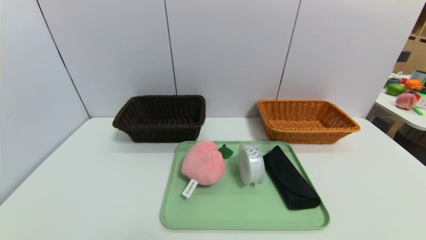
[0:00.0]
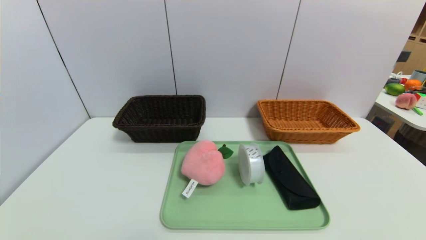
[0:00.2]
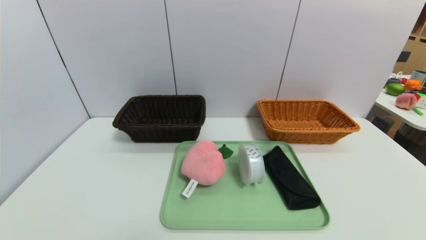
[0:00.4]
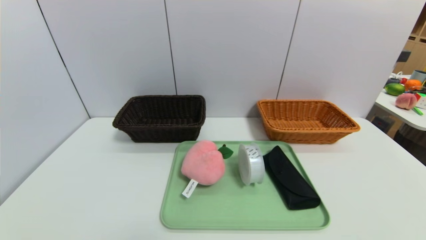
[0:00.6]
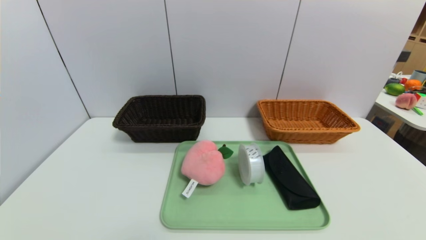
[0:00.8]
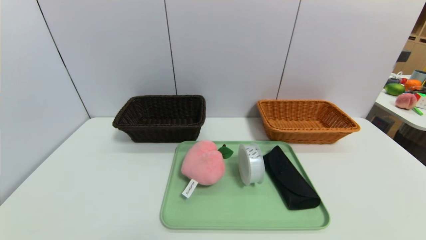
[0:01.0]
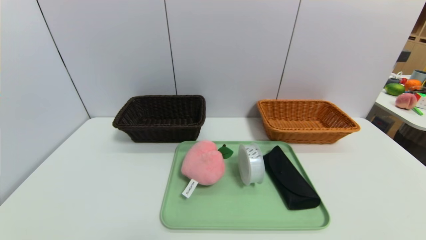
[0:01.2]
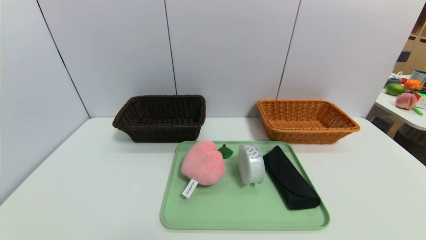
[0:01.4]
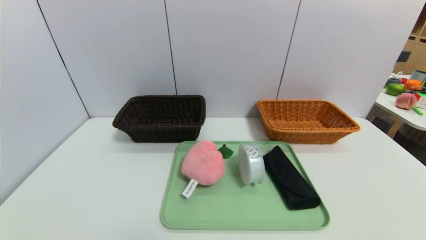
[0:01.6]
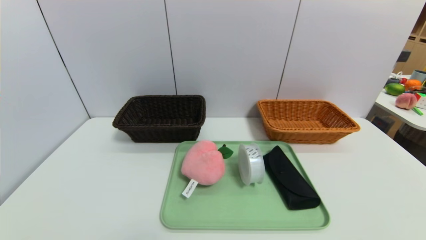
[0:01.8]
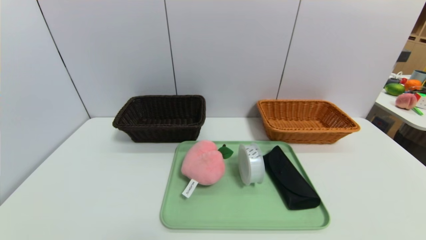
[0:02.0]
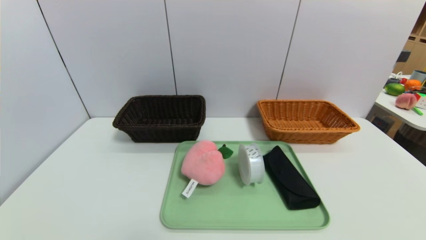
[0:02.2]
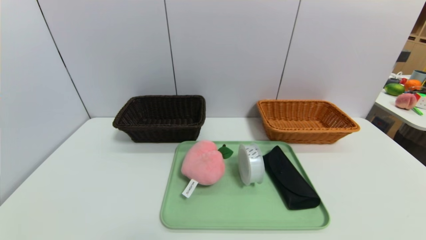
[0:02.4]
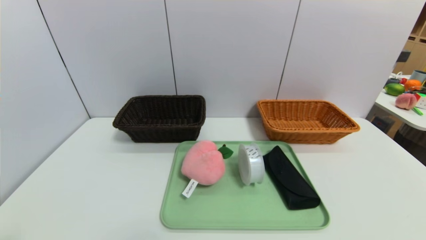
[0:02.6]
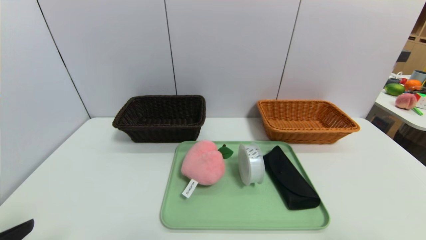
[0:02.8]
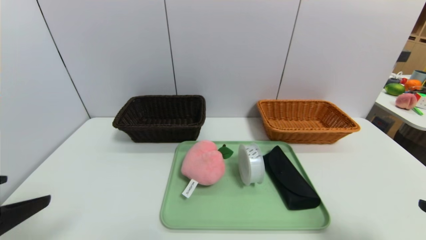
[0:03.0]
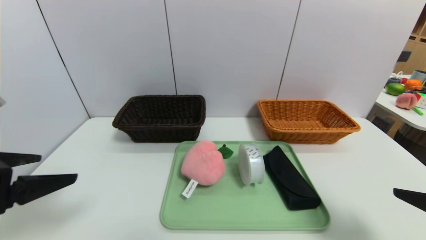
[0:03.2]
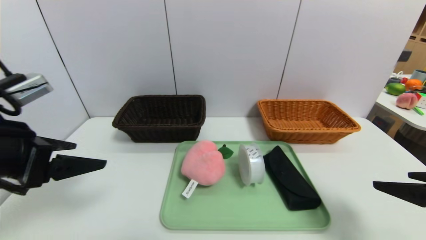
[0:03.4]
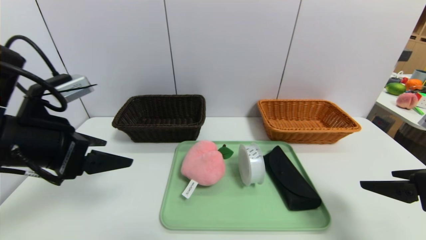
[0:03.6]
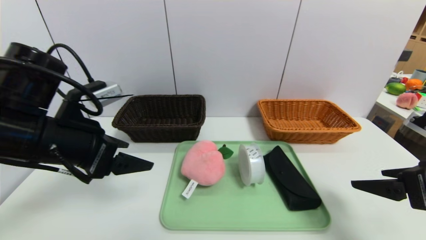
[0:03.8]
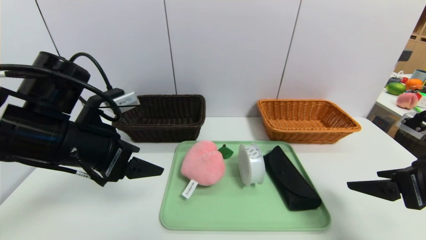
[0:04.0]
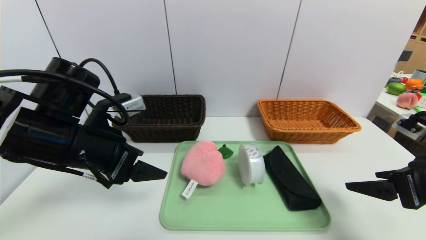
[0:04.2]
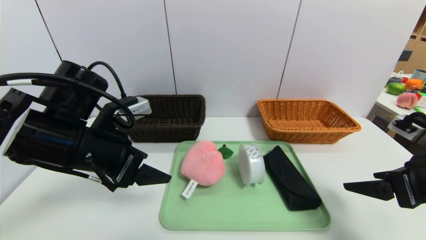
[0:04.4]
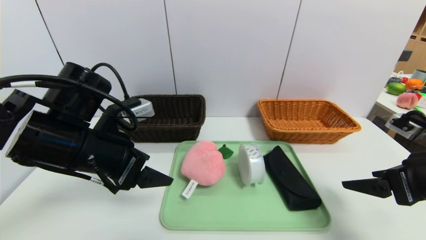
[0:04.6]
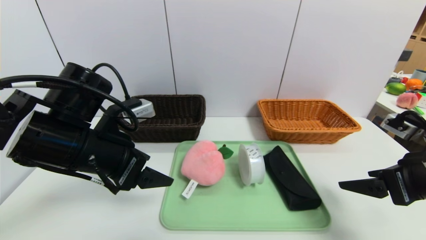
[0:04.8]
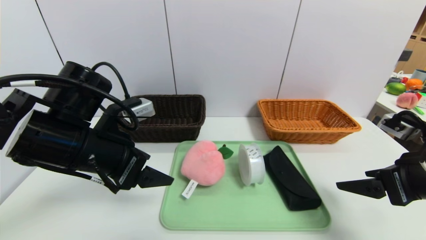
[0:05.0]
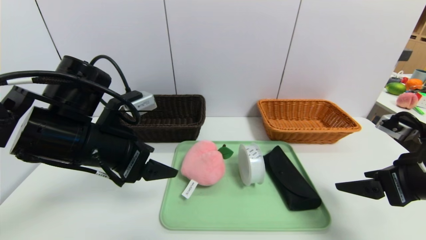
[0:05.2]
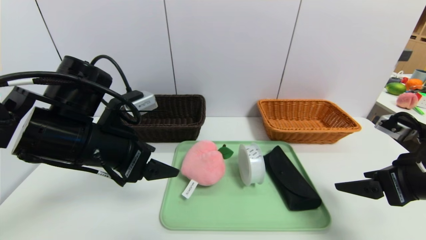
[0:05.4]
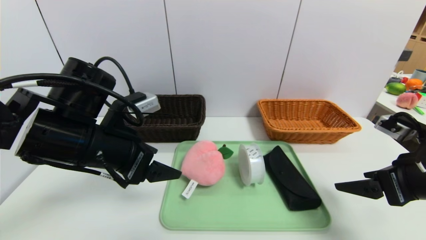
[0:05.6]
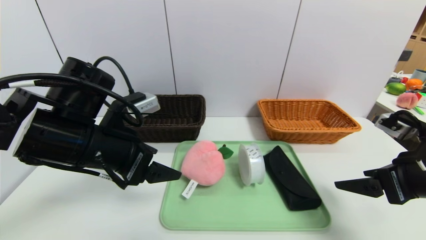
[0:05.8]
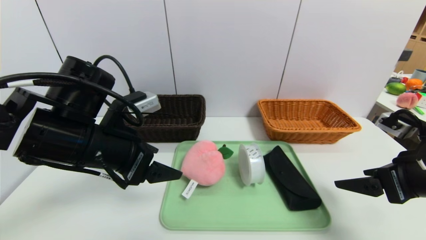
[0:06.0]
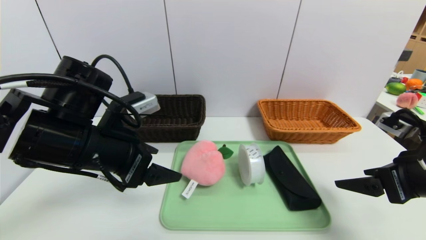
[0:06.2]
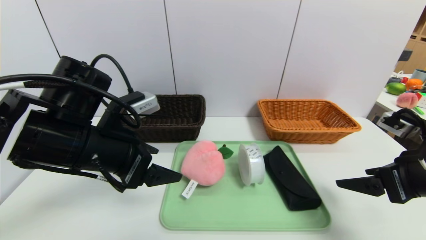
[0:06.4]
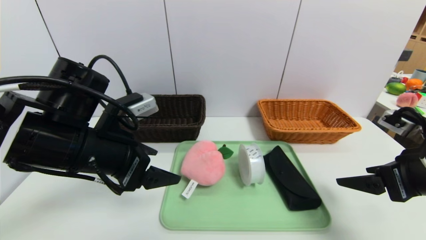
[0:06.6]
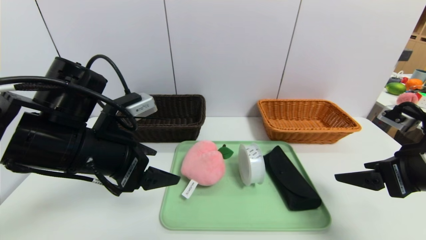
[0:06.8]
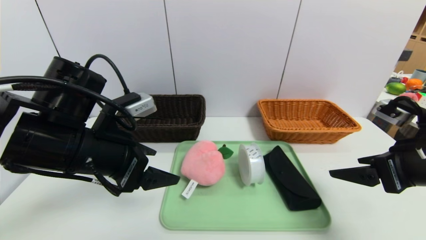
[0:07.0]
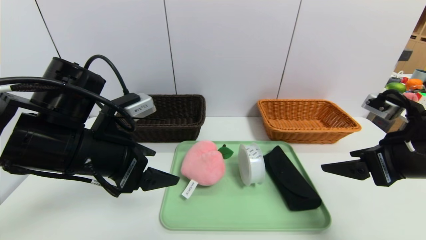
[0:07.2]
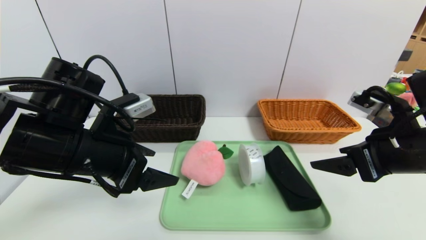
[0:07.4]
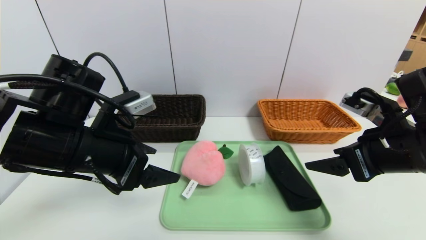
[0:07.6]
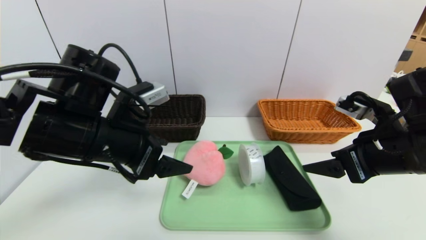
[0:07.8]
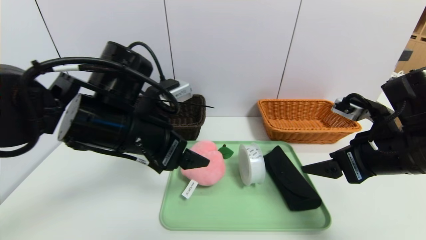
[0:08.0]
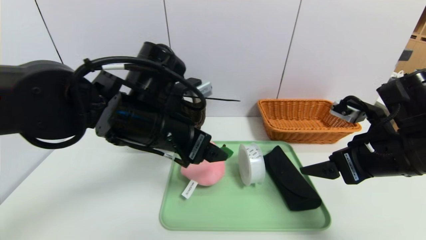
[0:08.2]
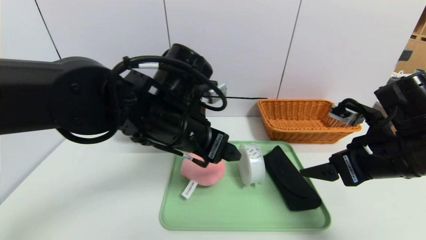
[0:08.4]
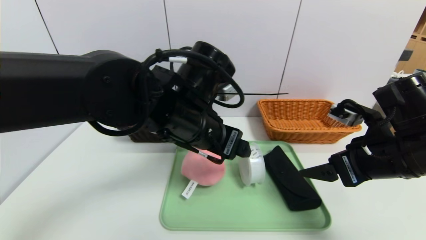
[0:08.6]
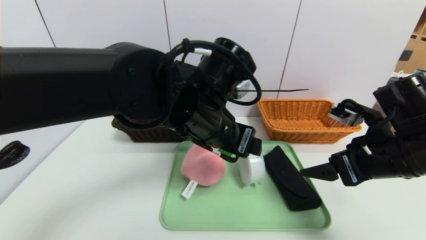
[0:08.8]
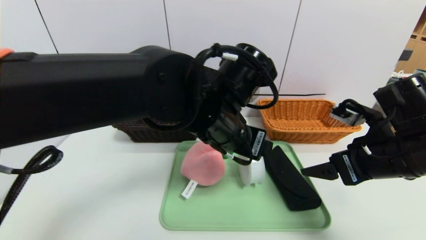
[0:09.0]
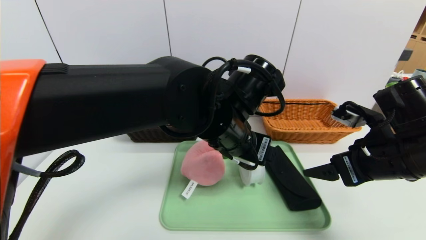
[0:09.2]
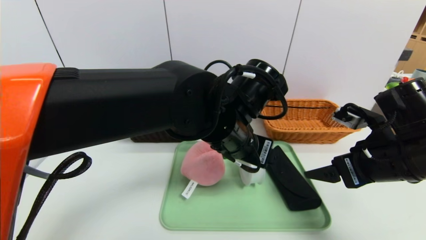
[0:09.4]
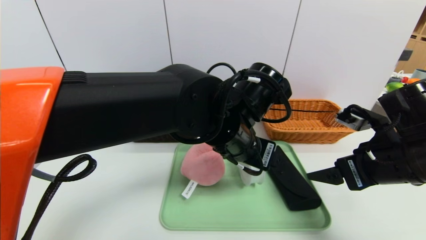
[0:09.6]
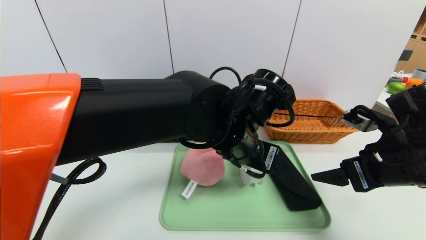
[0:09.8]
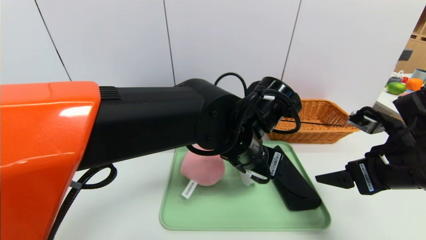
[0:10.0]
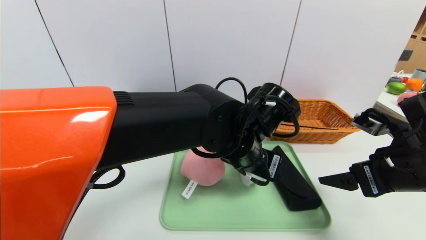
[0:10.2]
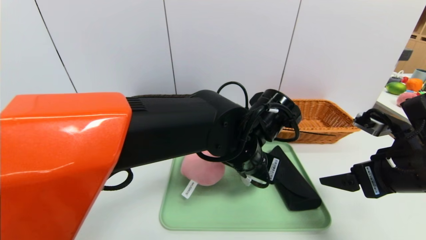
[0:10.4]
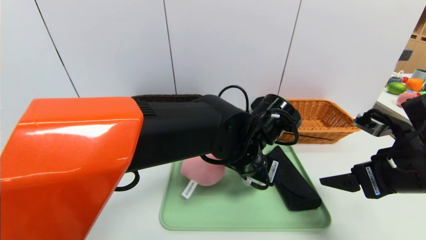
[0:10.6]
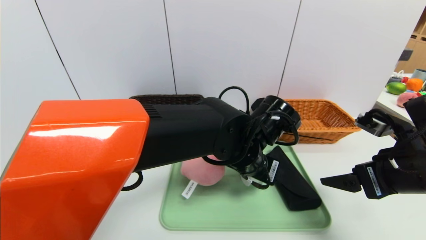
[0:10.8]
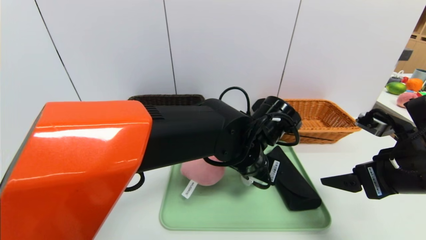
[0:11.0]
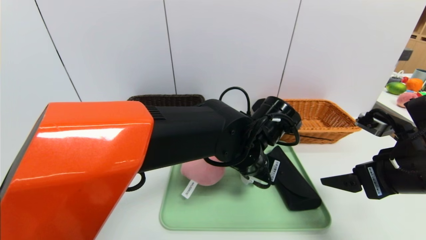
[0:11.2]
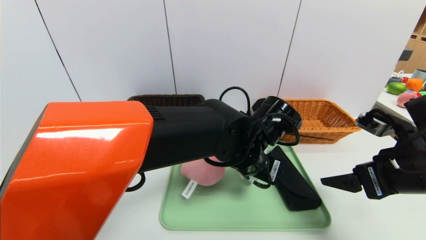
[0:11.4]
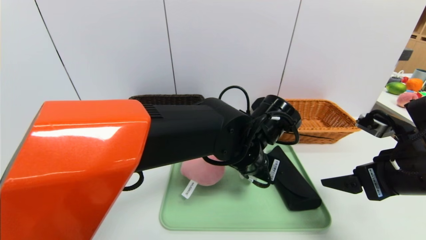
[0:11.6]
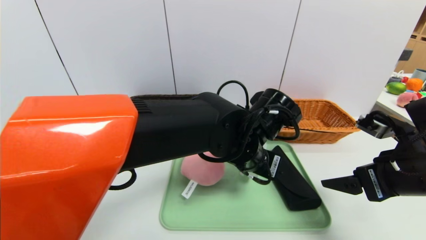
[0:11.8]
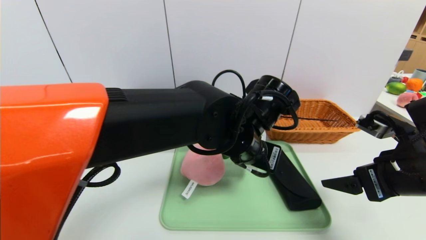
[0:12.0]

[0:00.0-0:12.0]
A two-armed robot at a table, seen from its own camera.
Task of the whole recording: place the food in the right basket with the right gripper, and place the non food items in the left basket with the left gripper.
0:00.0 to 0:01.6: Both grippers stay about where they are.
0:01.6 to 0:03.0: Both grippers move upward and forward, some 20 cm.
0:03.0 to 0:04.4: The right gripper heads forward, covering roughly 10 cm, while the left gripper travels forward and to the right by approximately 20 cm.
0:04.4 to 0:06.0: The grippers move only a little.
0:06.0 to 0:07.6: The right gripper ends up some 5 cm from where it was.
0:07.6 to 0:09.0: The left gripper shifts about 20 cm to the right.
0:09.0 to 0:10.4: The left gripper moves downward, roughly 5 cm.
0:10.4 to 0:12.0: The left gripper closes its fingers.

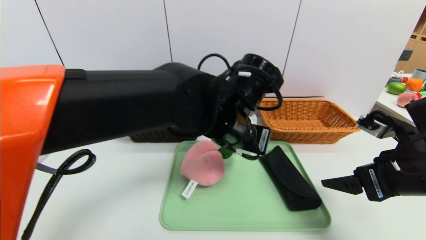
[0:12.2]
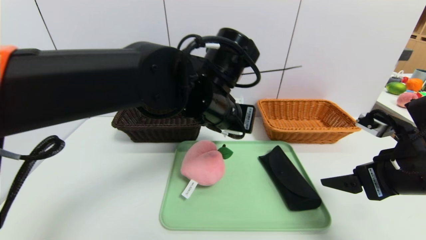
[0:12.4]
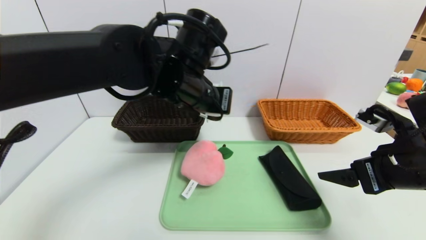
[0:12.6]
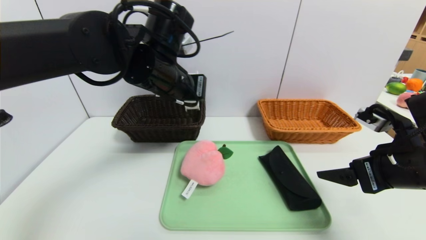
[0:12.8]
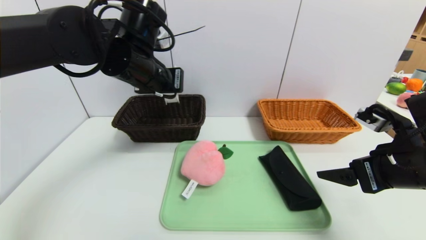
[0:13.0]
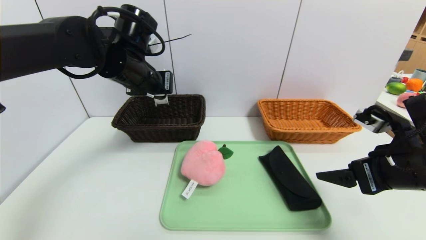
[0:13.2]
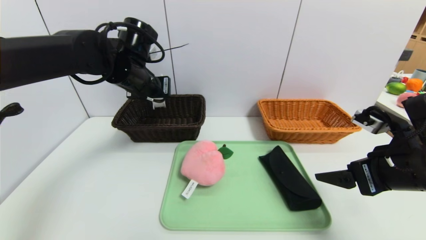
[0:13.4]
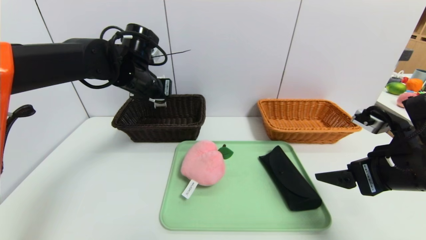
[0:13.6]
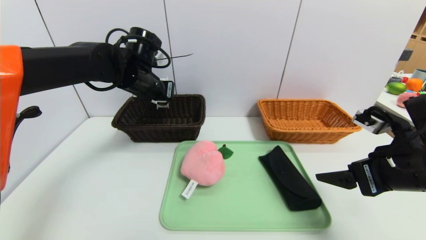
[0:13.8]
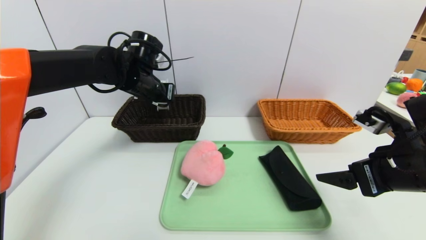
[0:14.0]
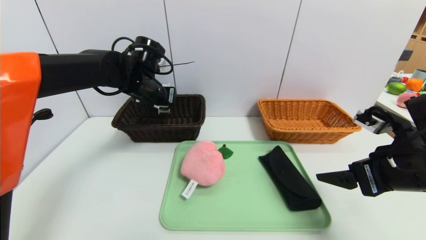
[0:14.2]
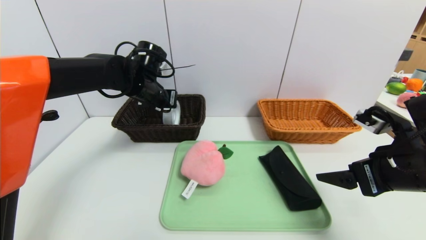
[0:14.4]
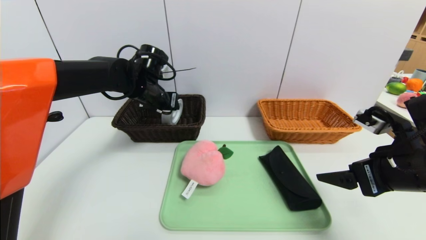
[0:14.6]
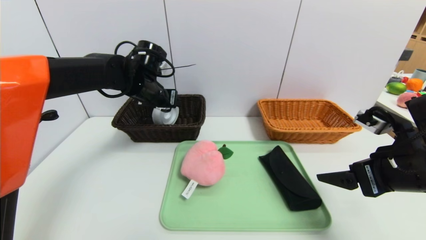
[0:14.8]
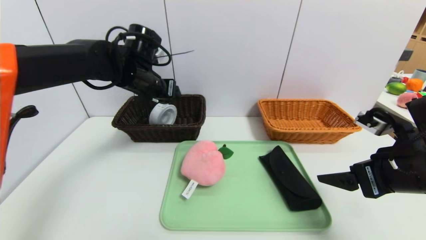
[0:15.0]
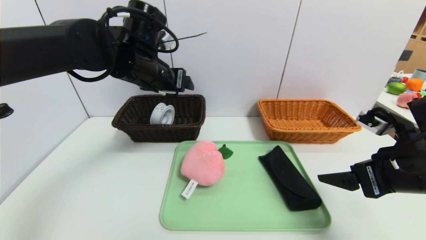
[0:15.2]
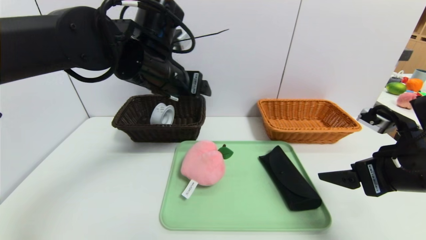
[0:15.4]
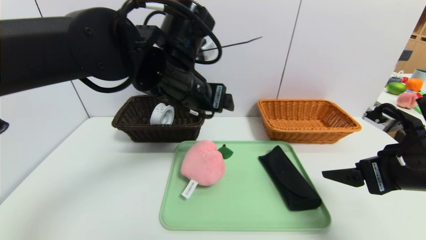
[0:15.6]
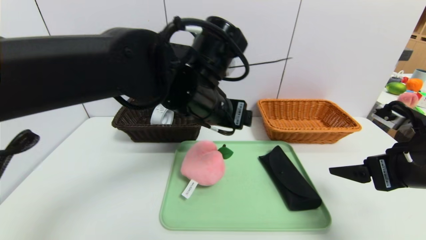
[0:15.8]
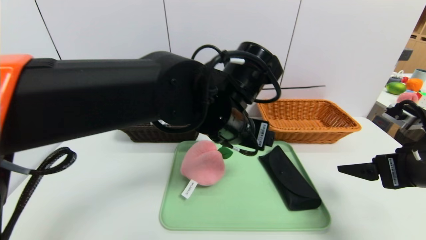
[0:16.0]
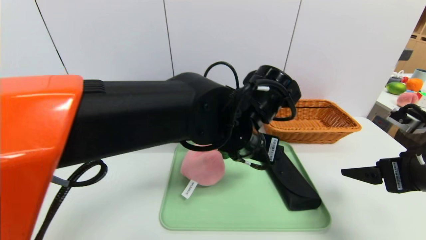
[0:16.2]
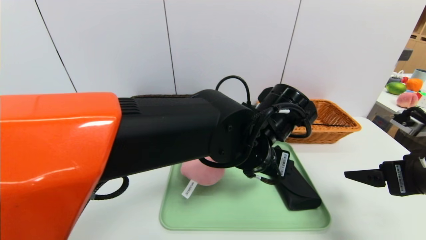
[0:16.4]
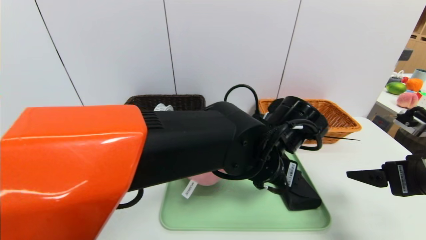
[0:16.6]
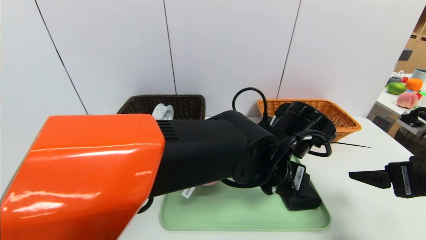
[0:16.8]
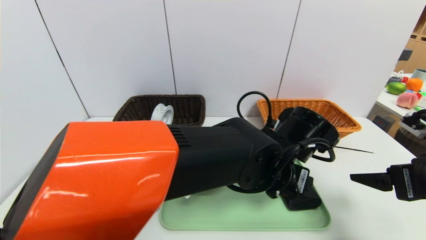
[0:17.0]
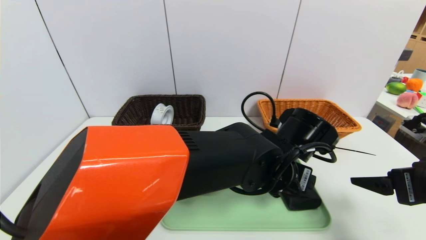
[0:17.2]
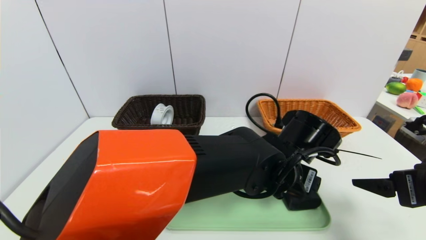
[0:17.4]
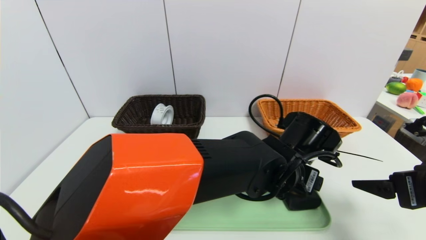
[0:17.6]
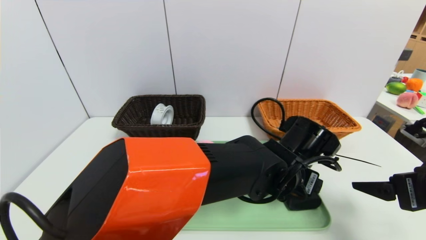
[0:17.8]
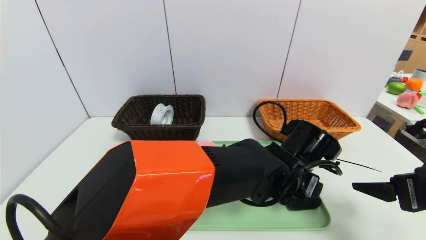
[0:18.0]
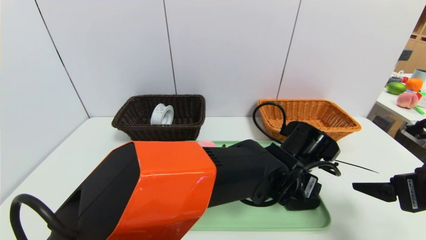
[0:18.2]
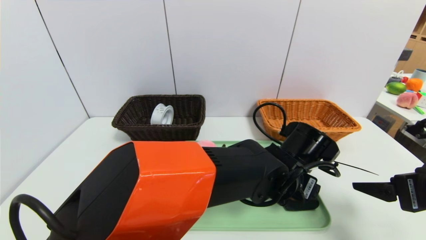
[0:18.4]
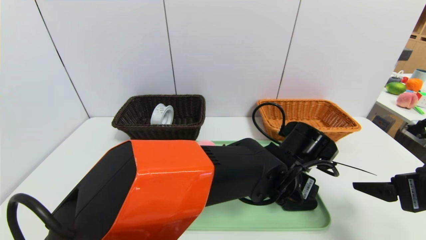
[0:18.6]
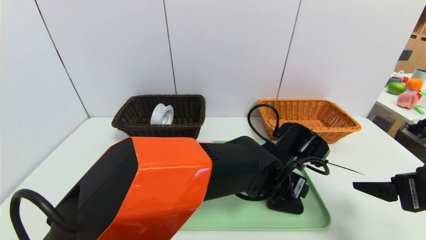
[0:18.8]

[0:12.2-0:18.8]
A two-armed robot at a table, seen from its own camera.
Task of the whole recording: place the food in the right basket with the right gripper, and place the non food items in the left basket with the left gripper.
Step, 0:12.2 to 0:14.8: Grasp the tape and put it in the left basket.
0:12.2 to 0:13.8: The left gripper heads to the left and forward, covering roughly 20 cm.
0:13.8 to 0:15.4: The left gripper is displaced backward and to the right by roughly 10 cm, and opens.
0:15.4 to 0:17.2: The left gripper shifts some 25 cm to the right and downward.
